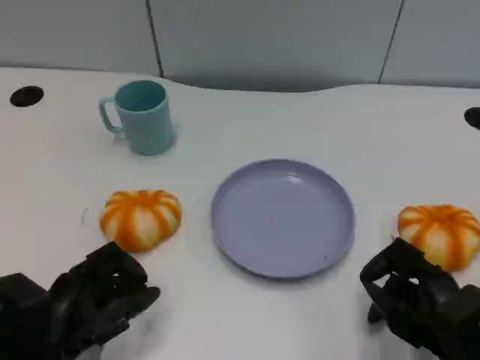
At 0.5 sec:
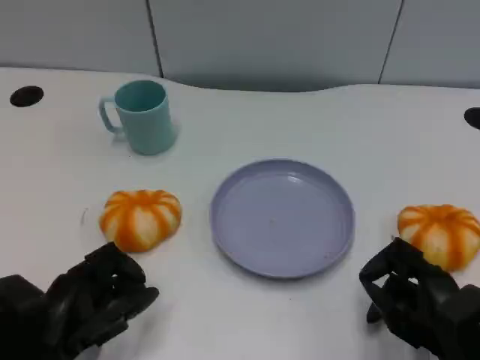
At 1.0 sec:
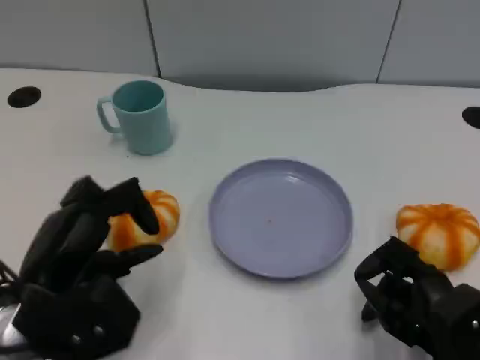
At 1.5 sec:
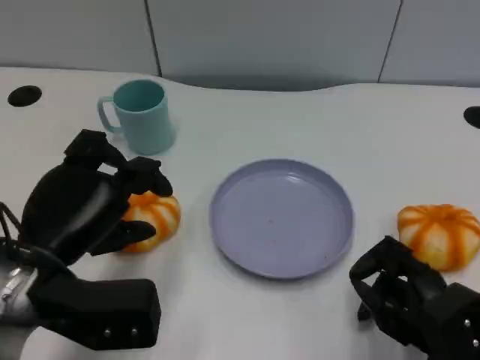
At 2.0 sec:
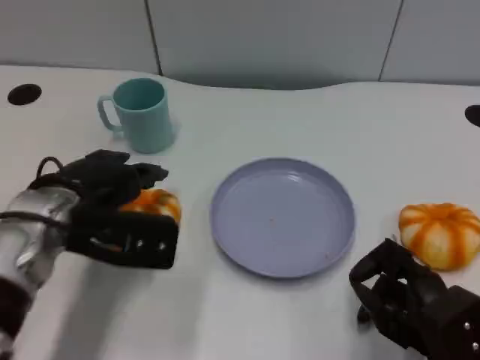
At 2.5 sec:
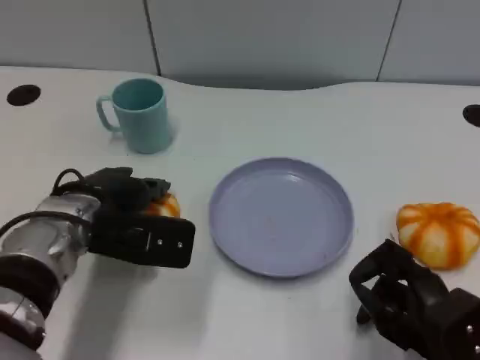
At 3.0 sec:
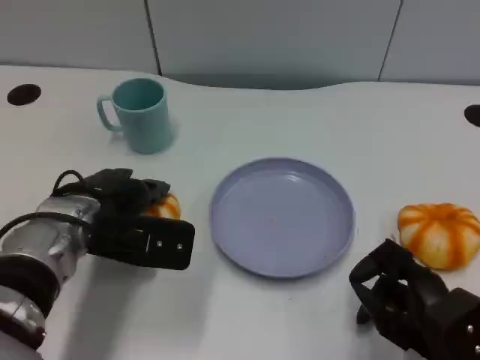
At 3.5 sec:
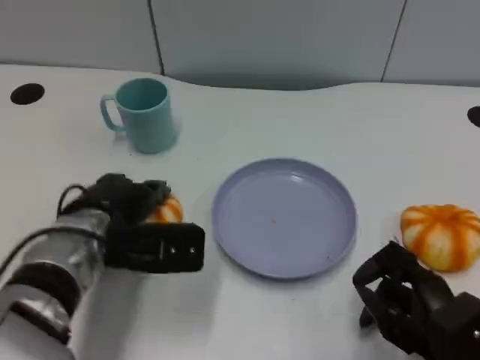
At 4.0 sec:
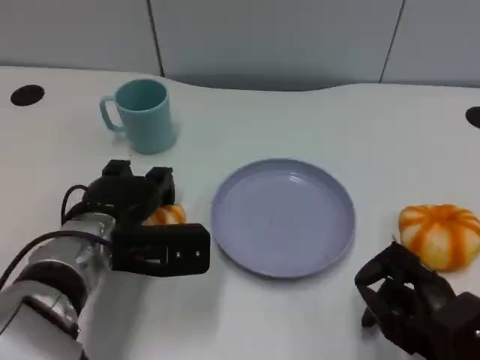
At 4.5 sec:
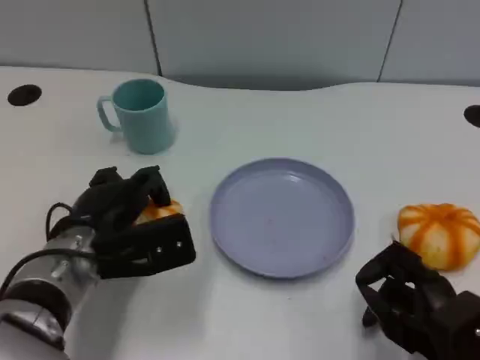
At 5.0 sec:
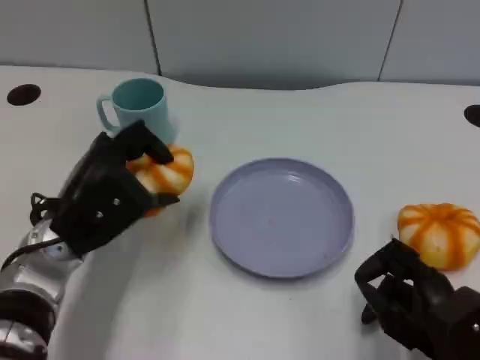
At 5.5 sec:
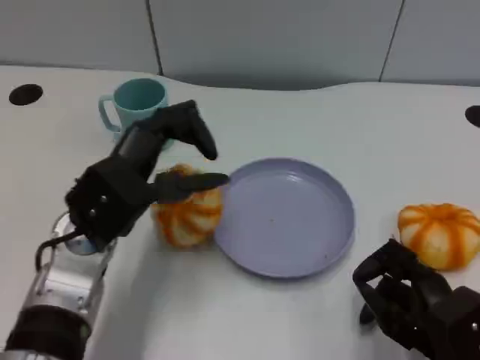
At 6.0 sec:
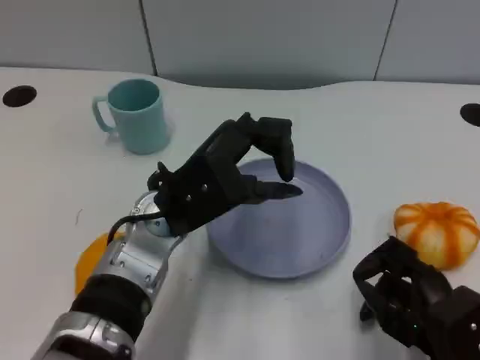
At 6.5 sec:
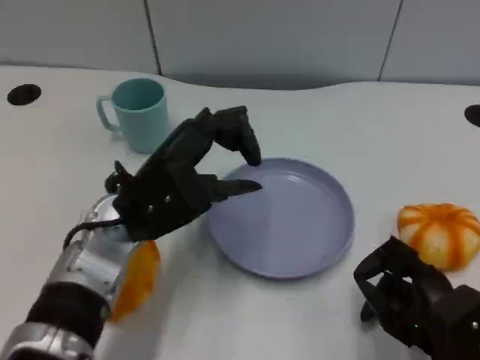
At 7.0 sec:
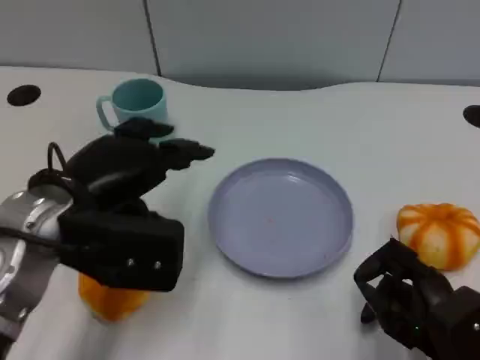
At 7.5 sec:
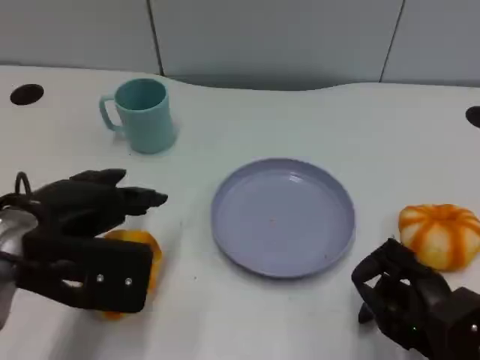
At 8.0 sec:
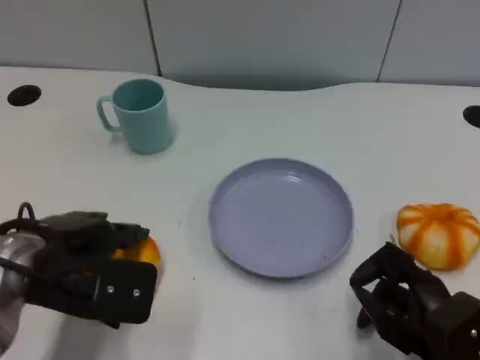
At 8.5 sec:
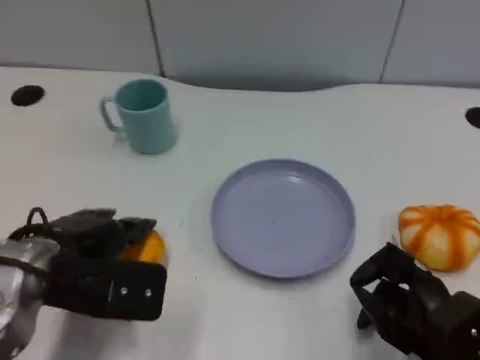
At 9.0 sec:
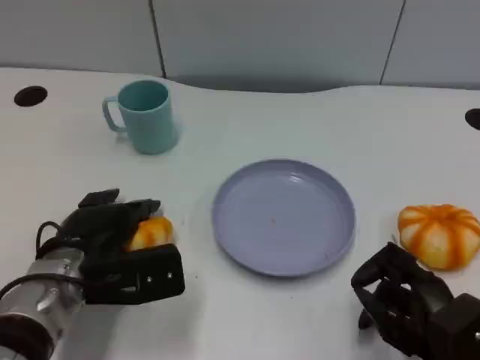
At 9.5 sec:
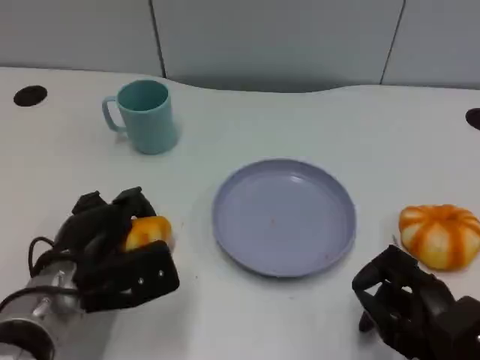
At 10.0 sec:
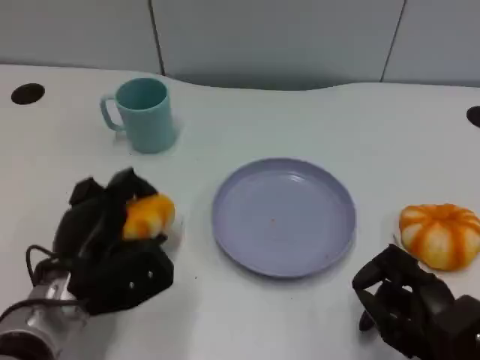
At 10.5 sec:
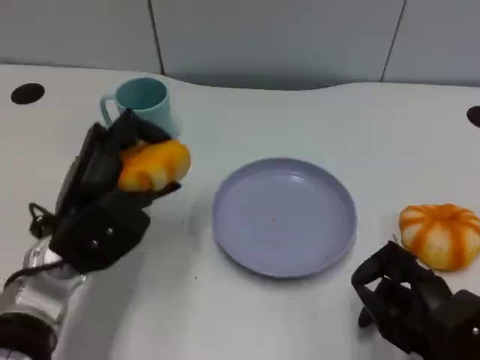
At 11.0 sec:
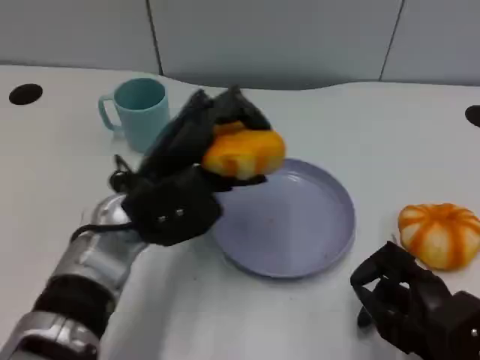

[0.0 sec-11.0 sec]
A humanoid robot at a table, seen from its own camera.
Task of the whole recording: Grasp the bread from the table and place it into the plate.
0.0 sec to 2.0 sec: The left hand is displaced forward and upward by about 15 cm.
2.0 sec to 3.5 sec: There are only small adjustments of the hands.
3.5 sec to 5.5 sec: The left hand changes place by approximately 5 cm.
5.5 sec to 7.5 sec: The left hand heads to the left, covering roughly 5 cm.
7.5 sec to 9.0 sec: The left hand shifts some 10 cm downward.
9.0 sec to 11.0 sec: The left hand is displaced to the right and upward by some 10 cm.

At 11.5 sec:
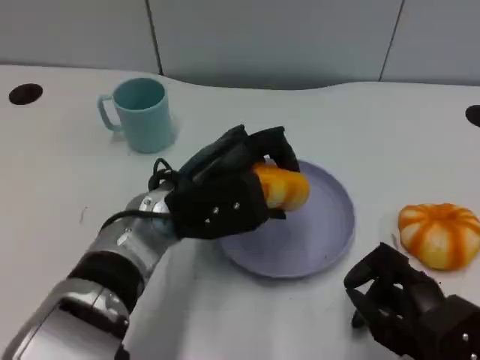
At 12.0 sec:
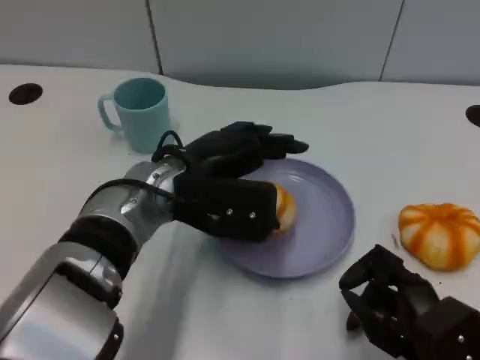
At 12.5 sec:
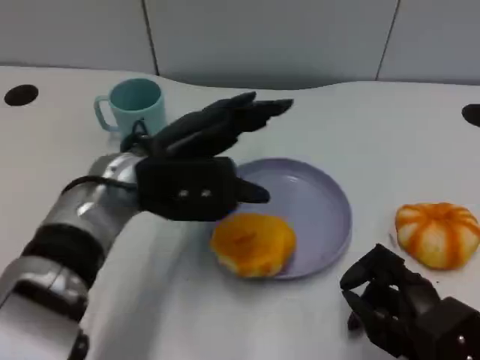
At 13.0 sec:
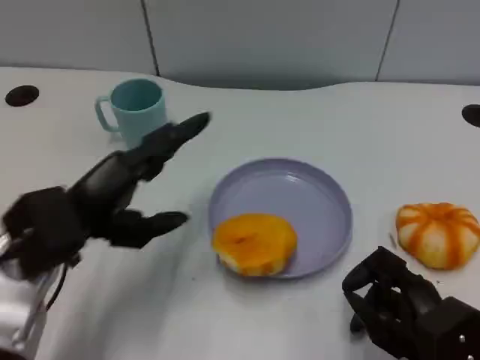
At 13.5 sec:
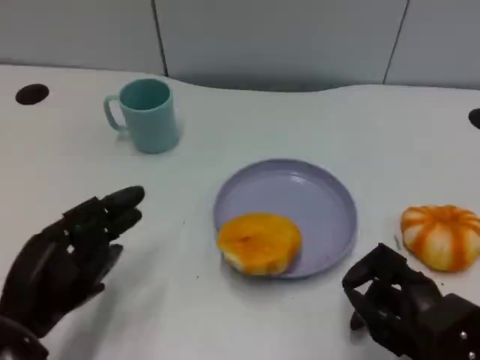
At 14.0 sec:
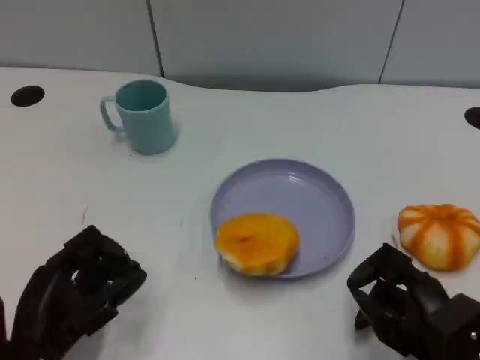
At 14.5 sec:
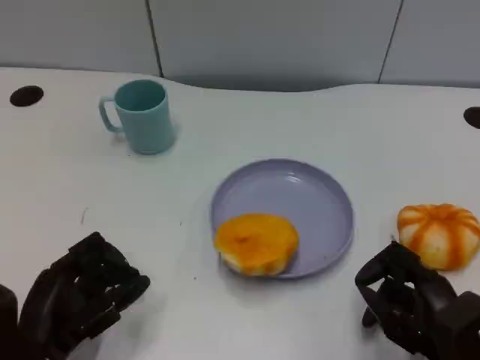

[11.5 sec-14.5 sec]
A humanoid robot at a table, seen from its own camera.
Task of the whole recording: Grasp the bread from the table and place it into the plate.
11.5 sec to 13.0 sec: The left hand shifts roughly 15 cm to the left and backward.
13.0 sec to 14.5 sec: The left hand travels downward and backward by about 10 cm.

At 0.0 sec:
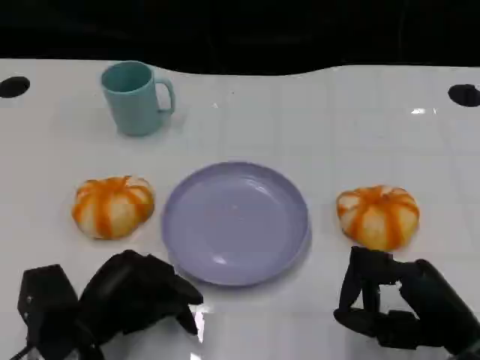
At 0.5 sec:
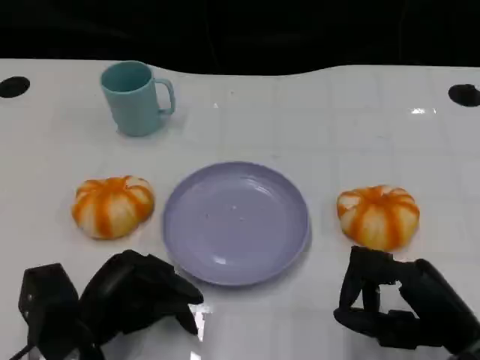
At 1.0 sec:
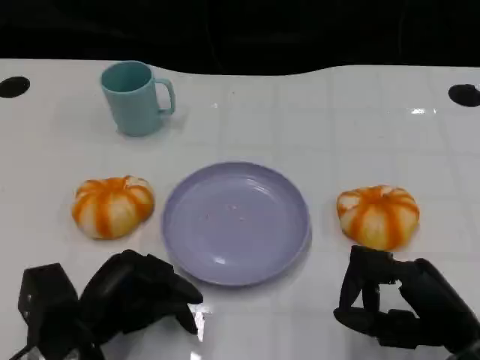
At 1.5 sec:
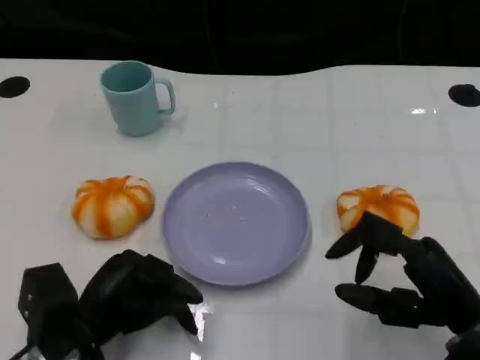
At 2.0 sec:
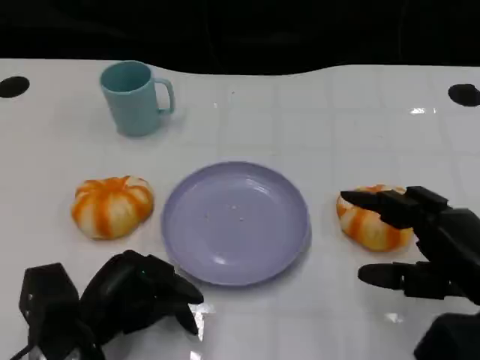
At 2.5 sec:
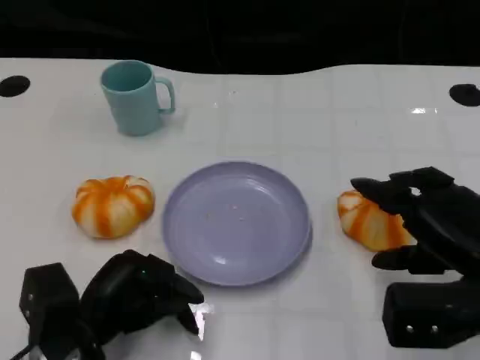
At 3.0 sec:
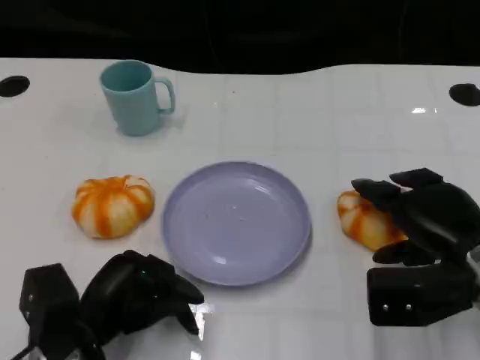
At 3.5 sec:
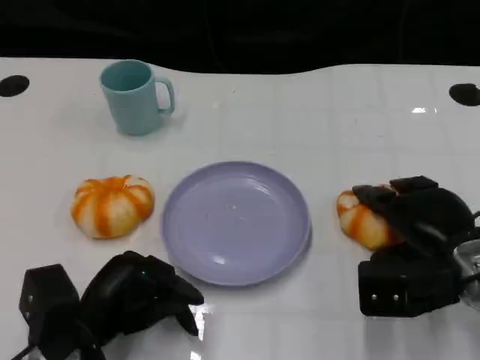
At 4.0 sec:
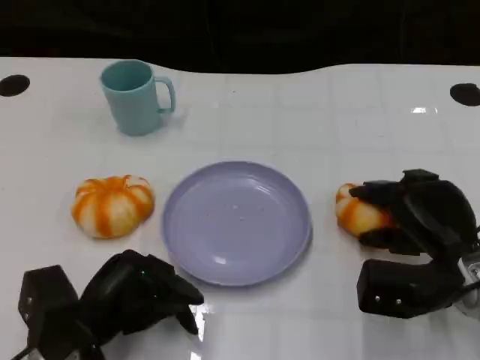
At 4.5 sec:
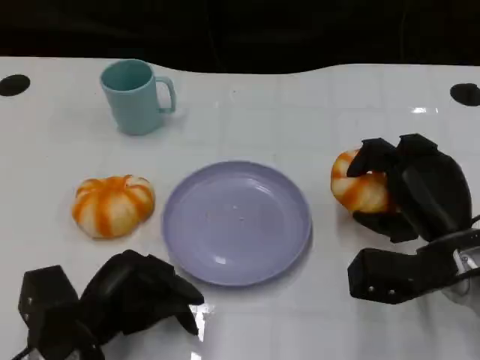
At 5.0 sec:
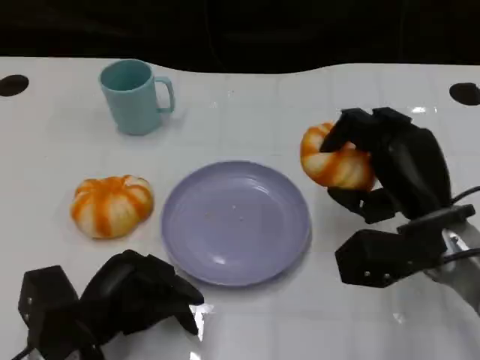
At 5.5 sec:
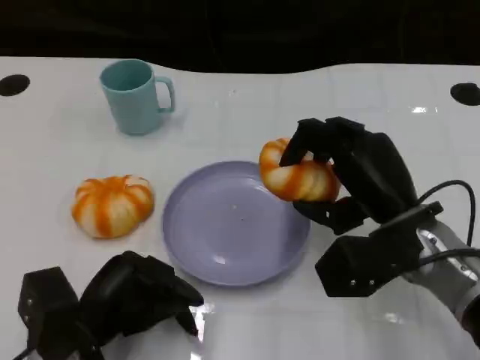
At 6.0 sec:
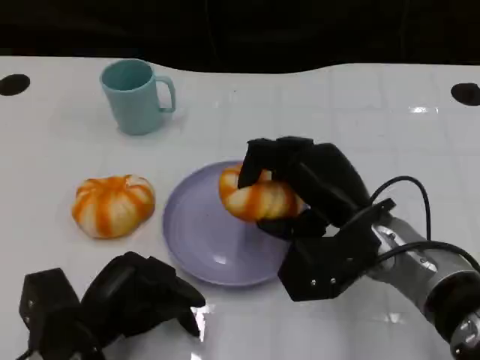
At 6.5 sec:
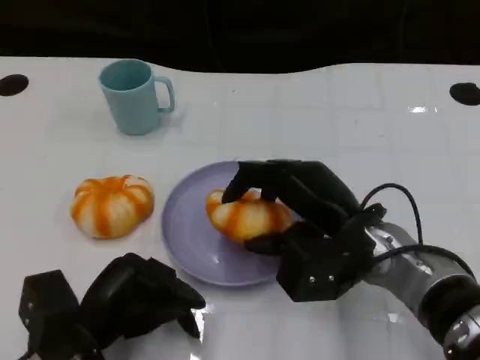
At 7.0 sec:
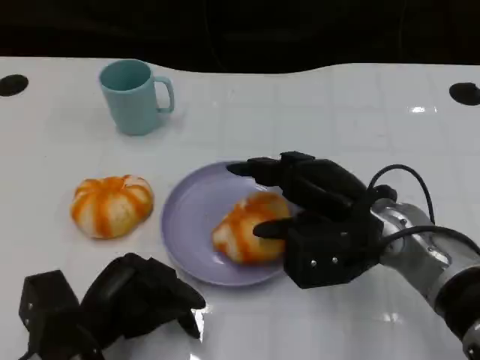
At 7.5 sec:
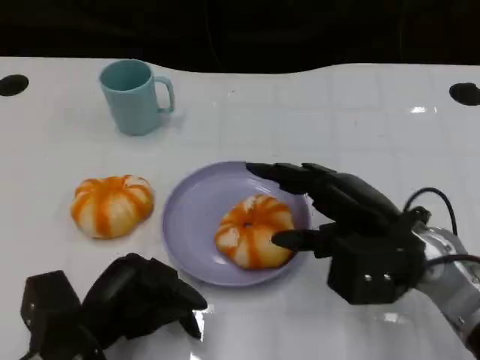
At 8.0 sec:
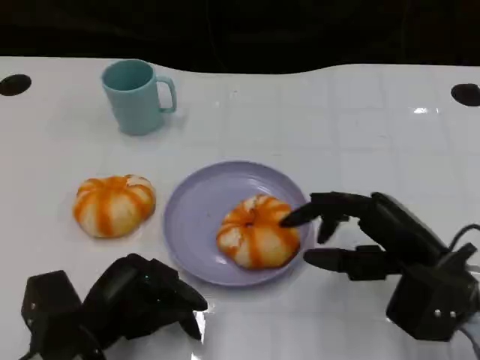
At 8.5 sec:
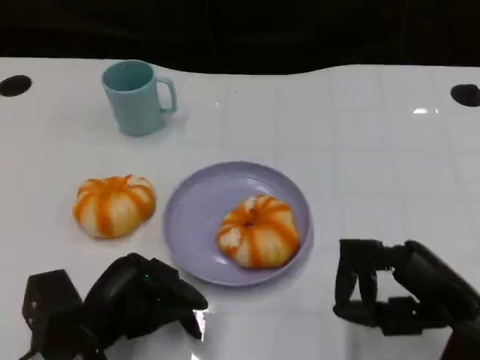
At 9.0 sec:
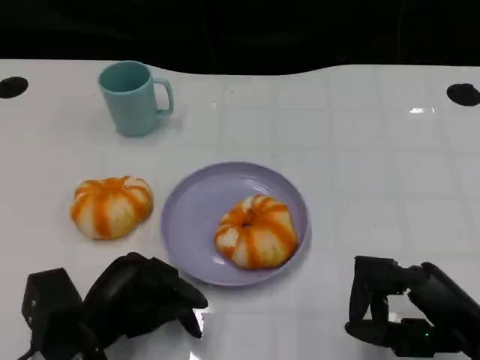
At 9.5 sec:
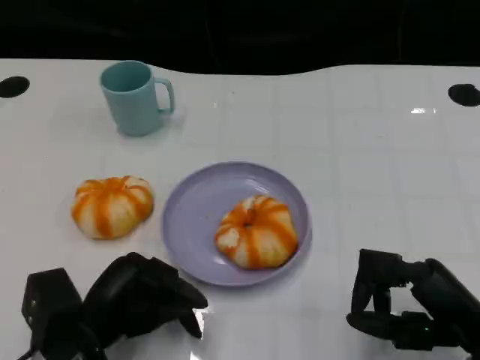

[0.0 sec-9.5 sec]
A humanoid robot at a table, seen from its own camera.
Task of the whole recording: Grasp the bread from the table and place it into the plate.
0.0 sec to 2.0 sec: The right hand moves about 5 cm.
2.0 sec to 4.0 sec: The right hand travels forward and downward by about 10 cm.
4.0 sec to 5.5 sec: The right hand travels to the left and upward by approximately 10 cm.
7.5 sec to 9.5 sec: The right hand moves backward and to the right, roughly 10 cm.

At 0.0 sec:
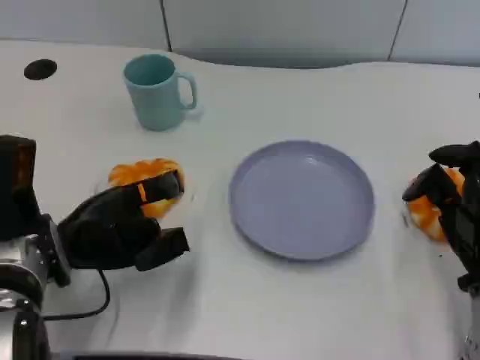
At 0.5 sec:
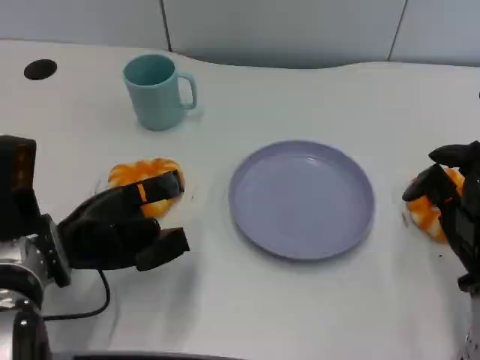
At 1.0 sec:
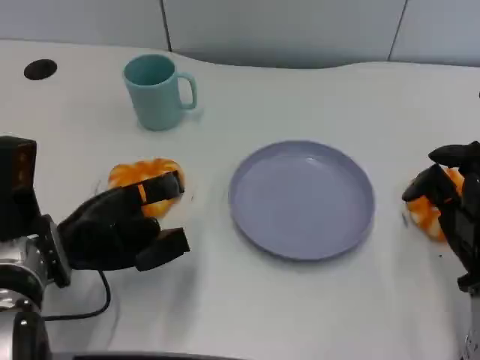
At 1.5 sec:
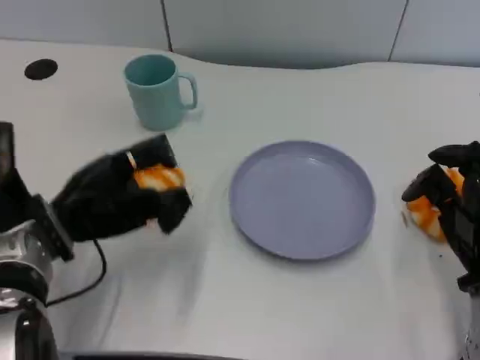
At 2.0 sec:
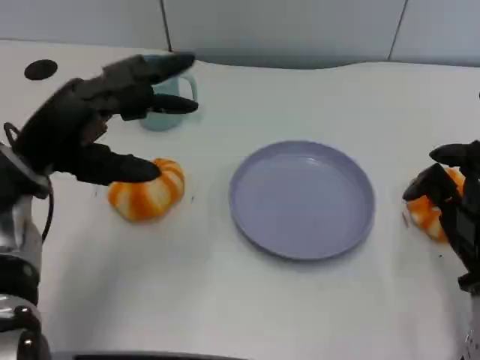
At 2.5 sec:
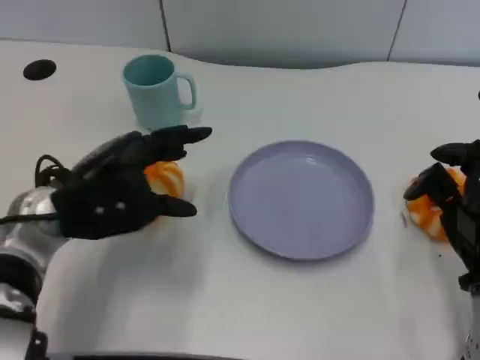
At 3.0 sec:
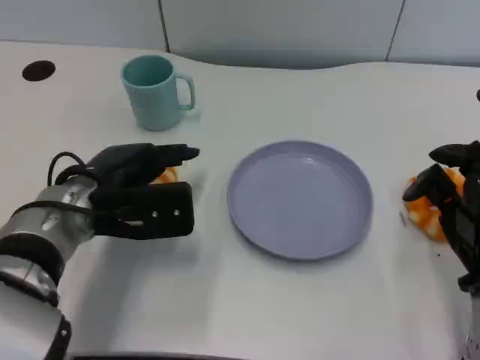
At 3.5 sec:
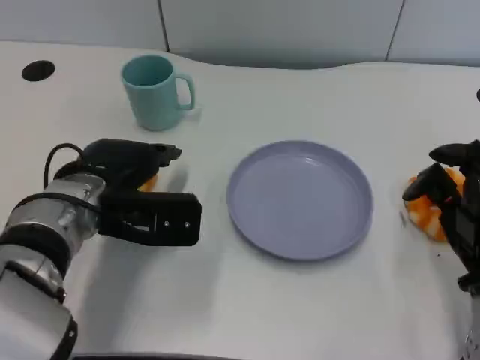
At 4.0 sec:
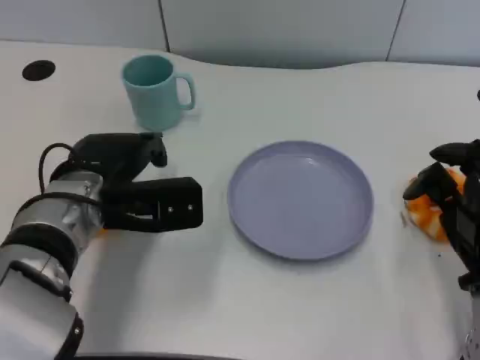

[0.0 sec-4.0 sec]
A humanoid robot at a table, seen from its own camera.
Task of the whole recording: Grasp the bread from the table and place it into the plate.
0.0 sec to 2.0 sec: The left hand is displaced upward by roughly 10 cm.
2.0 sec to 4.0 sec: The left hand travels to the right by roughly 5 cm.
